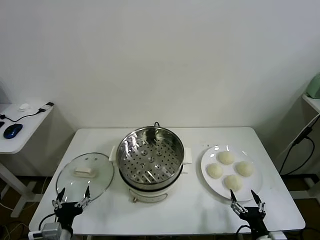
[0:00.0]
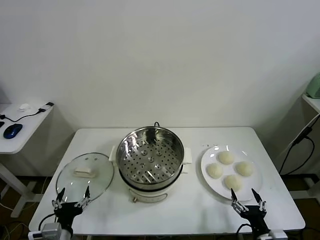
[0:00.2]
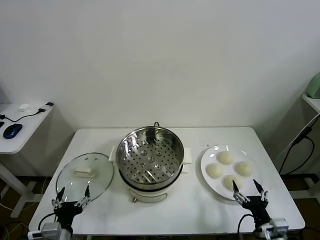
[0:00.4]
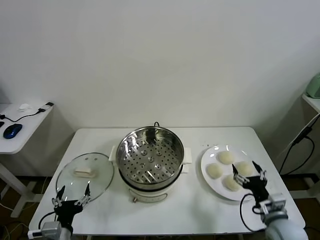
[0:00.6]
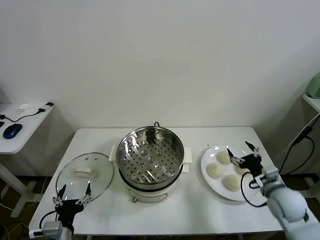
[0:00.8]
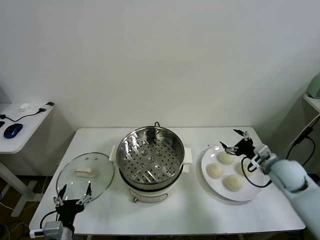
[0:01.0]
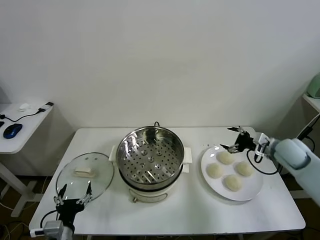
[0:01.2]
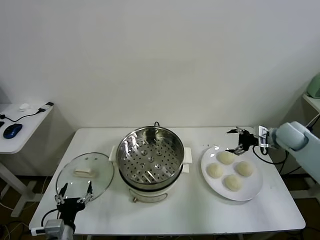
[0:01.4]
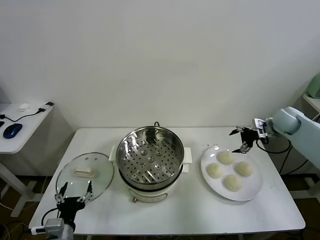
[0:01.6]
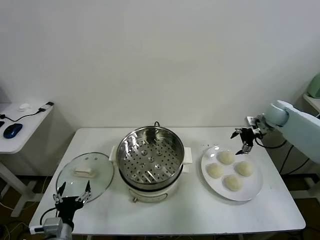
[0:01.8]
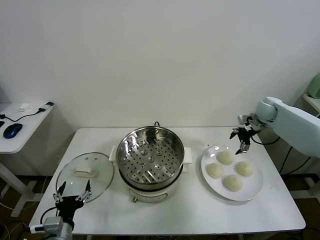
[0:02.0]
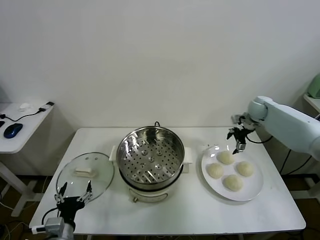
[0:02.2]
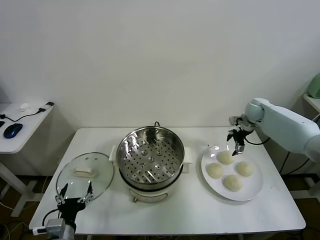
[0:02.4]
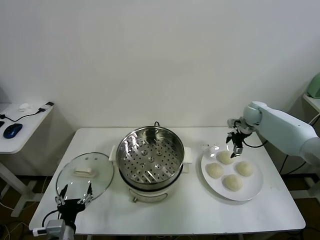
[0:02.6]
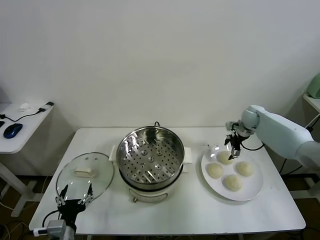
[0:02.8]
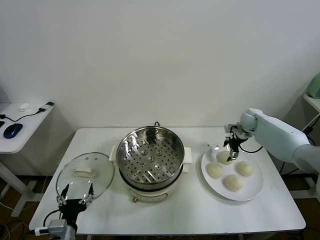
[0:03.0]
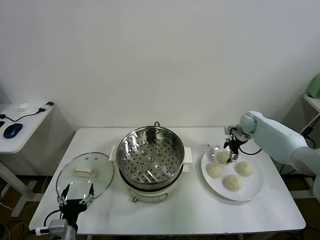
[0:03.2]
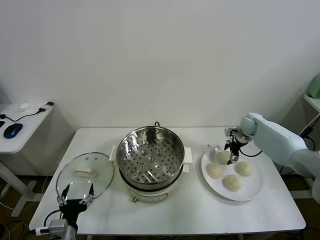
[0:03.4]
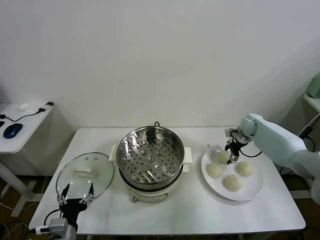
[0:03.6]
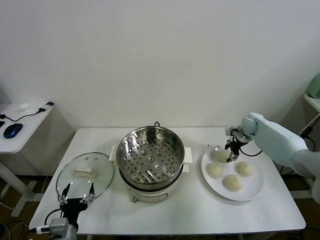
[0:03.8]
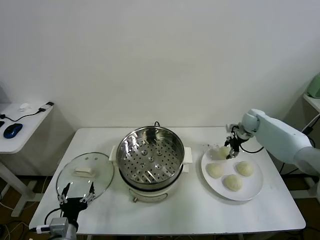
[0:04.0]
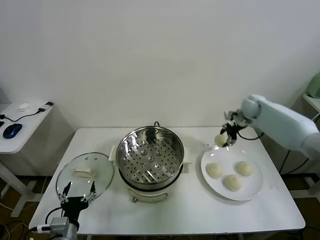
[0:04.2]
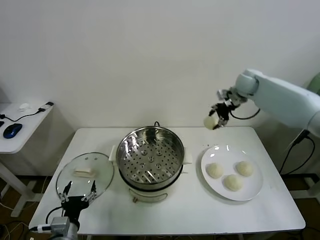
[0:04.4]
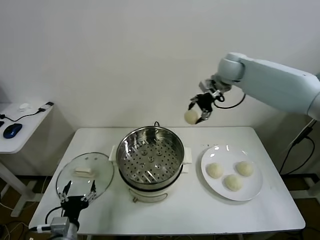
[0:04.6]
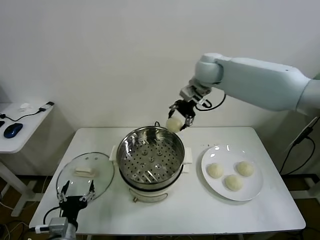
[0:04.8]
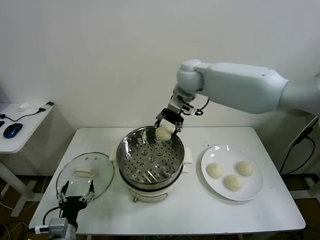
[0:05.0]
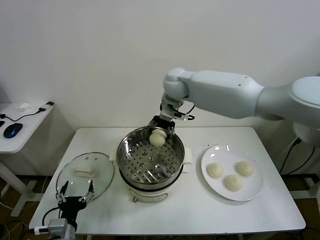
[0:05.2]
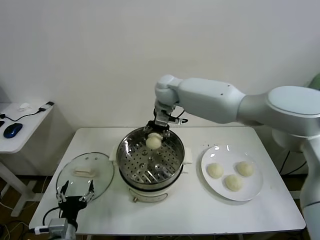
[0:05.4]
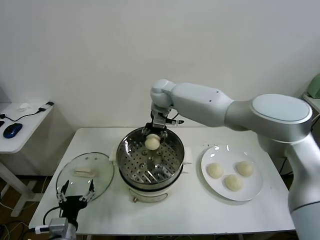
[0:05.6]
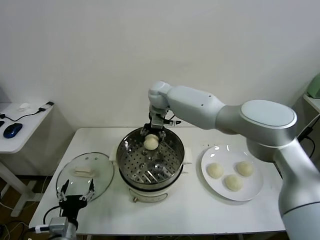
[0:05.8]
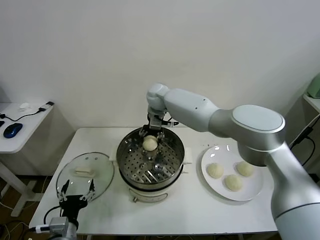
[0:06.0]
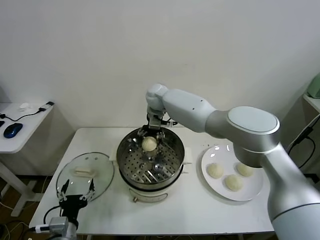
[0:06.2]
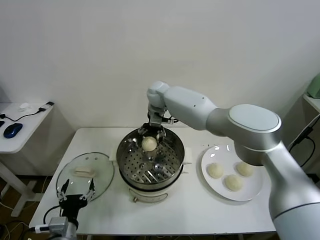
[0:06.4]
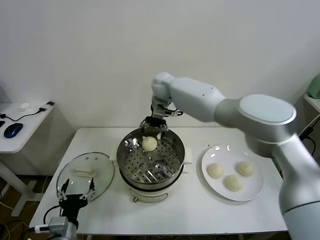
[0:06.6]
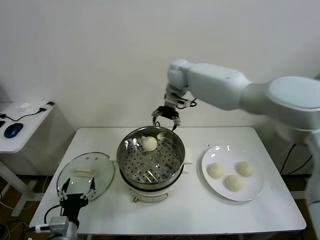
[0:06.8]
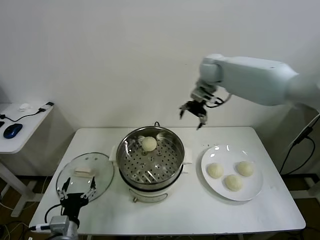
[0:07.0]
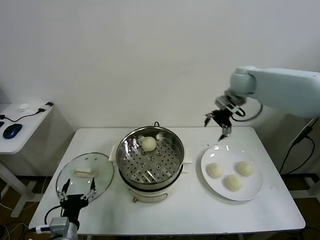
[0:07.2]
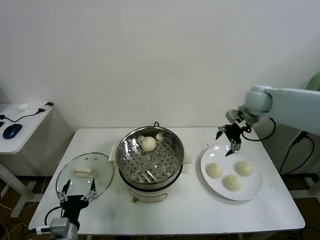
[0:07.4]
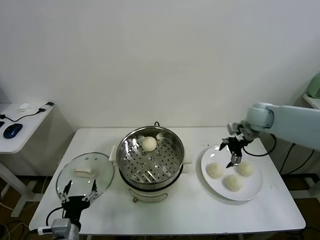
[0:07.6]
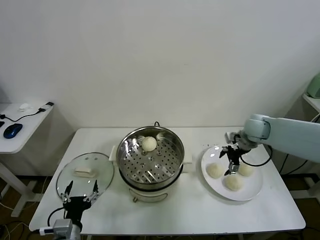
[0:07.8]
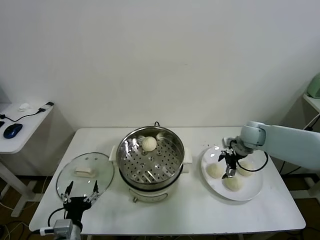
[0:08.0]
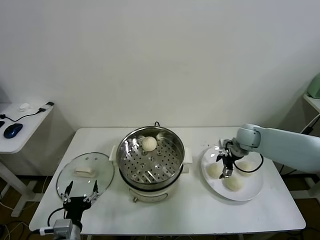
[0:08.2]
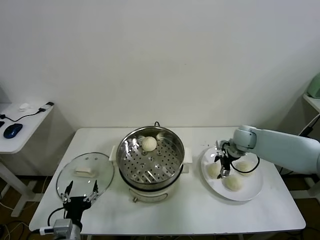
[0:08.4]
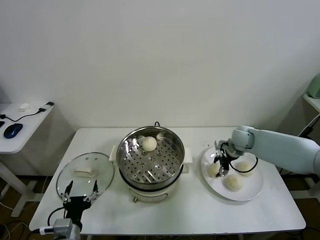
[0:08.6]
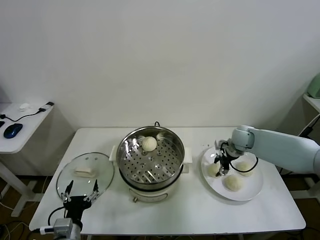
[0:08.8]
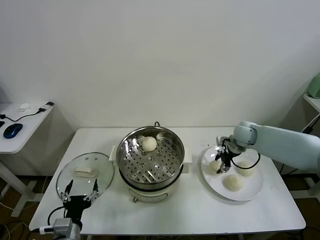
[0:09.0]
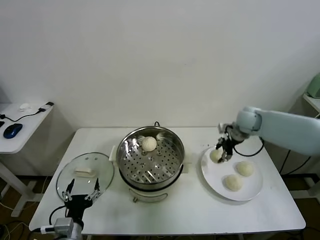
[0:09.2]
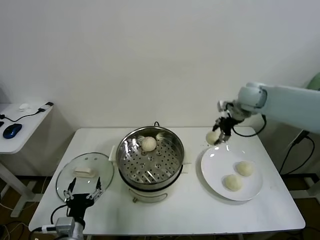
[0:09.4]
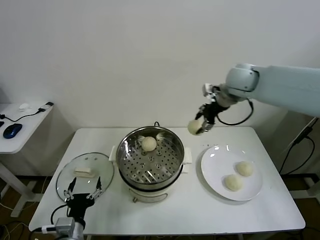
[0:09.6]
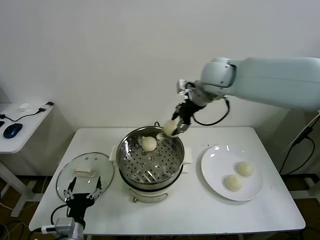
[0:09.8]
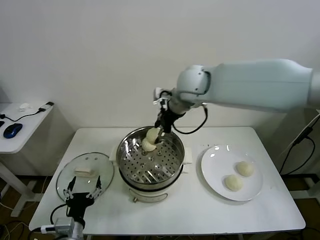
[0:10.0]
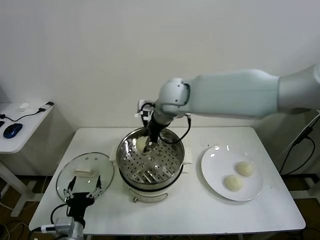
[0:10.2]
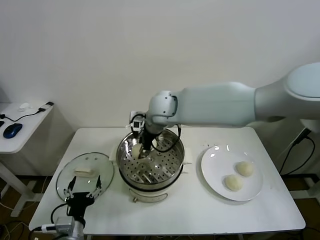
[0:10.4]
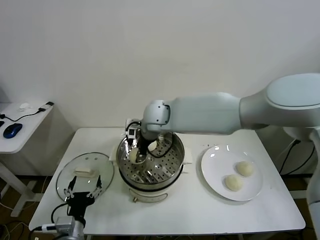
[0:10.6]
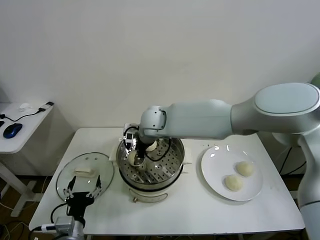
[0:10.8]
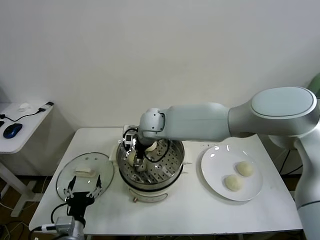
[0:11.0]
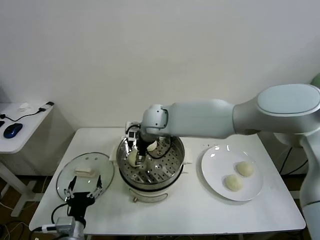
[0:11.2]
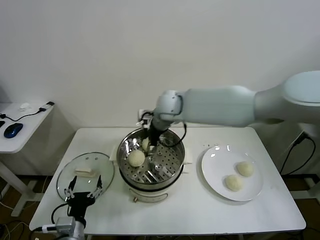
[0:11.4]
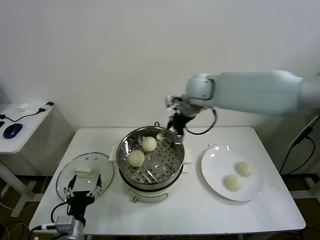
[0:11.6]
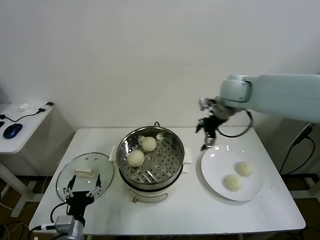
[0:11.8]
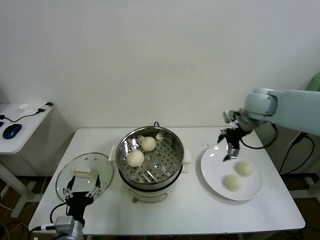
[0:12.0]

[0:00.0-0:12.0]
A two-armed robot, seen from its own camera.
Task of the whole recording: take steamed baozi put them in steamer.
Step, 0:00.0 to 0:03.8: Grasp the baozi in the plate with right gripper.
Step, 0:04.0 to 0:06.4: Place the baozi on the steamer with right gripper.
Step, 0:06.6 to 0:08.8: Grasp the baozi in the plate with right gripper.
Step, 0:09.0 to 0:11.2: Place the baozi on the steamer with right gripper.
0:01.6 to 0:03.0: The right gripper shifts about 10 cm downward, to the left and forward.
0:03.0 to 0:04.4: The right gripper heads upward and to the left, covering about 25 cm, and closes.
0:04.4 to 0:06.0: The right gripper travels to the left by roughly 30 cm.
0:06.0 to 0:07.6: The right gripper shifts about 35 cm to the right, and opens.
0:07.6 to 0:09.0: The right gripper goes approximately 5 cm downward, and closes its fingers.
0:09.0 to 0:10.4: The right gripper goes some 35 cm to the left and upward.
0:10.4 to 0:12.0: The right gripper heads to the right, covering approximately 35 cm, and opens up.

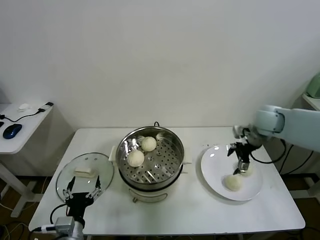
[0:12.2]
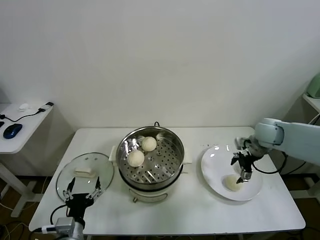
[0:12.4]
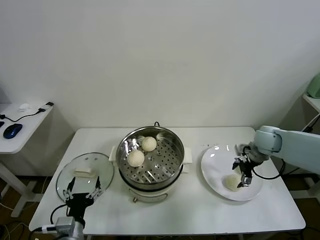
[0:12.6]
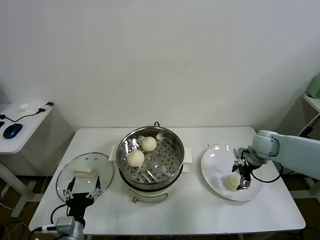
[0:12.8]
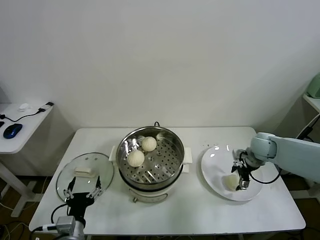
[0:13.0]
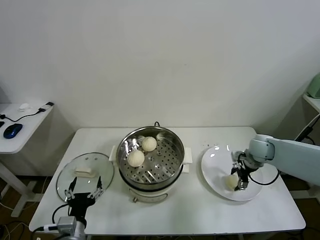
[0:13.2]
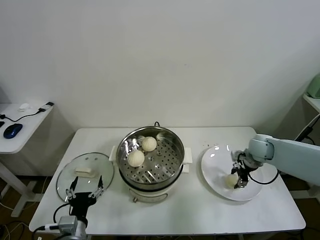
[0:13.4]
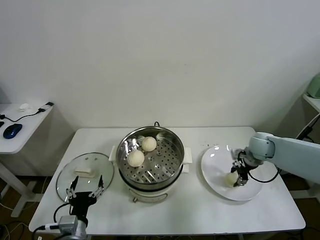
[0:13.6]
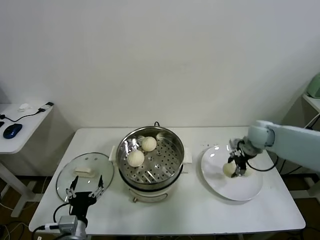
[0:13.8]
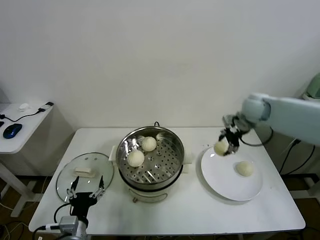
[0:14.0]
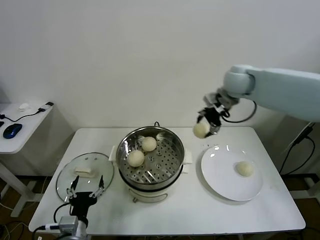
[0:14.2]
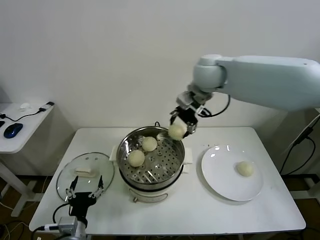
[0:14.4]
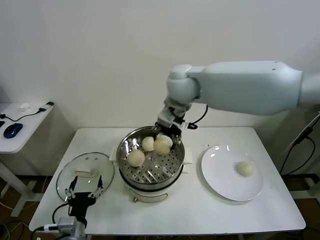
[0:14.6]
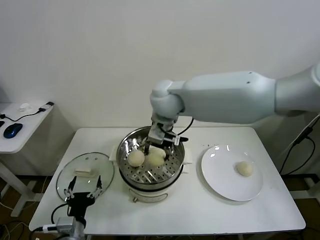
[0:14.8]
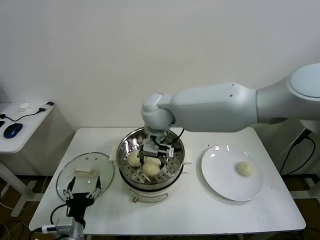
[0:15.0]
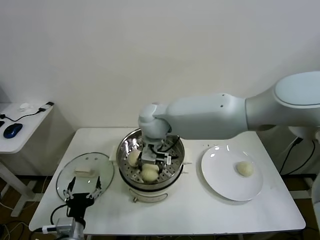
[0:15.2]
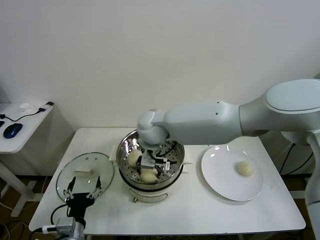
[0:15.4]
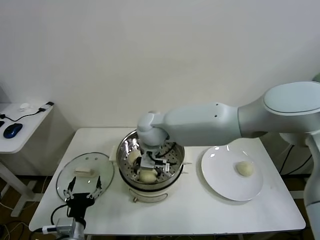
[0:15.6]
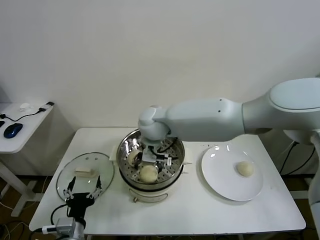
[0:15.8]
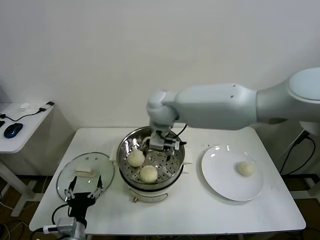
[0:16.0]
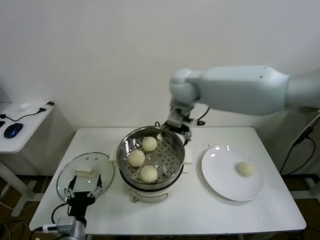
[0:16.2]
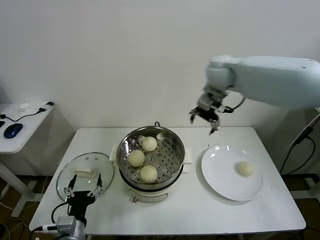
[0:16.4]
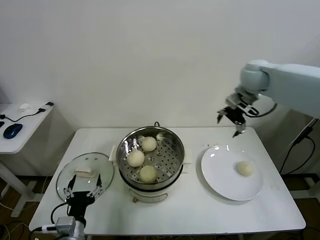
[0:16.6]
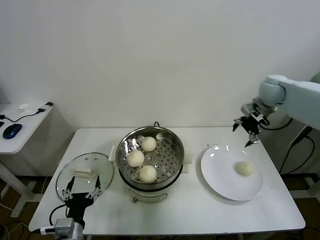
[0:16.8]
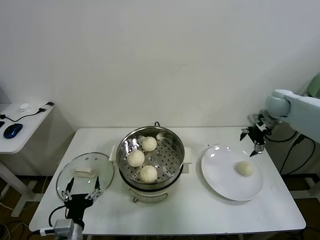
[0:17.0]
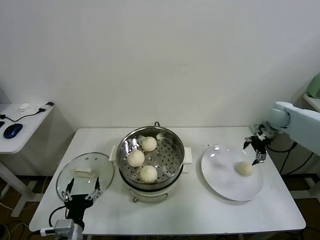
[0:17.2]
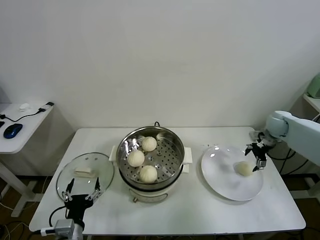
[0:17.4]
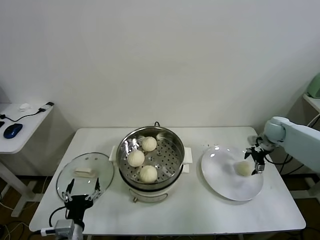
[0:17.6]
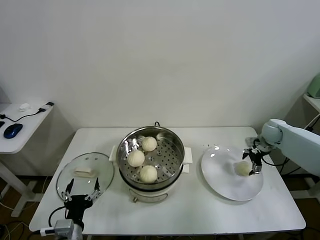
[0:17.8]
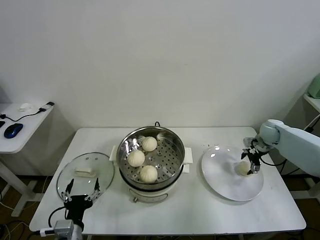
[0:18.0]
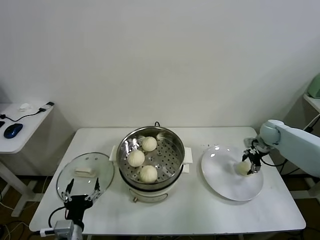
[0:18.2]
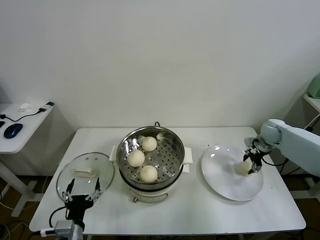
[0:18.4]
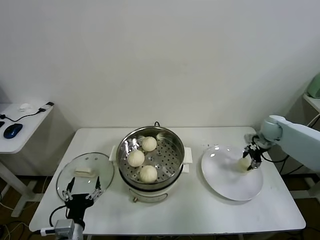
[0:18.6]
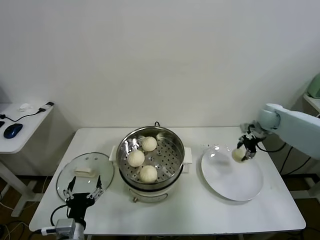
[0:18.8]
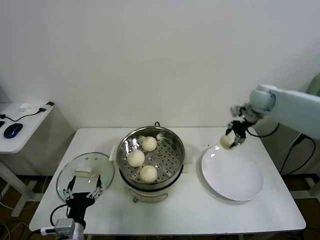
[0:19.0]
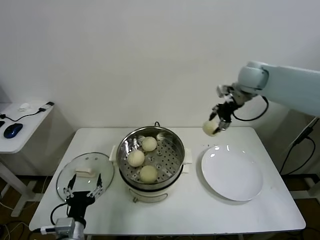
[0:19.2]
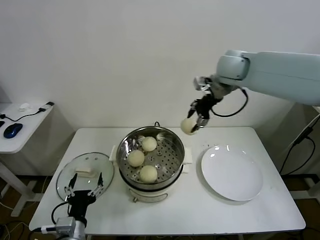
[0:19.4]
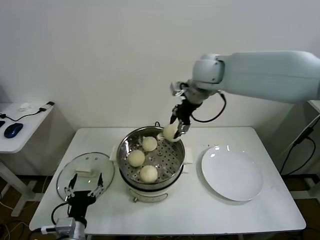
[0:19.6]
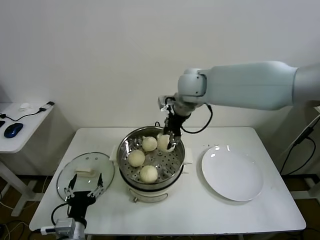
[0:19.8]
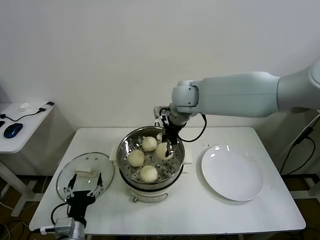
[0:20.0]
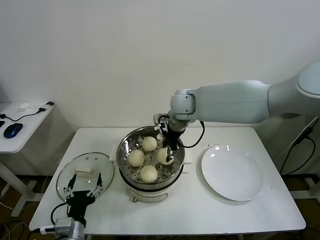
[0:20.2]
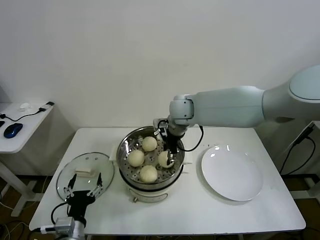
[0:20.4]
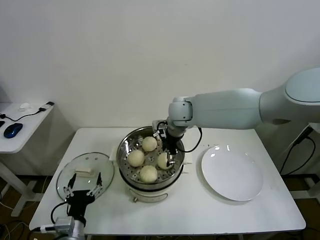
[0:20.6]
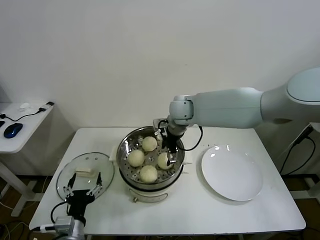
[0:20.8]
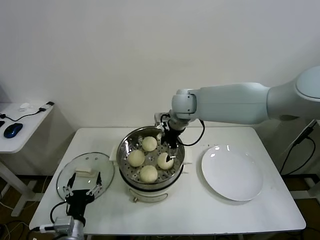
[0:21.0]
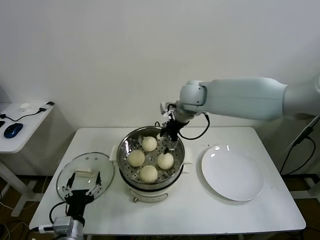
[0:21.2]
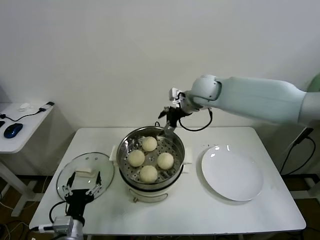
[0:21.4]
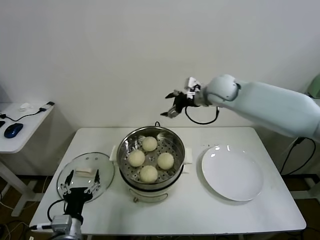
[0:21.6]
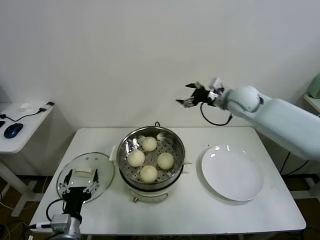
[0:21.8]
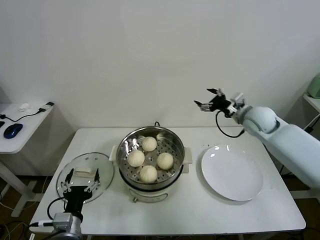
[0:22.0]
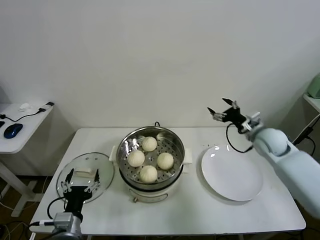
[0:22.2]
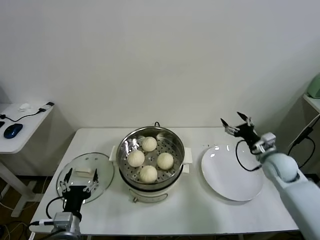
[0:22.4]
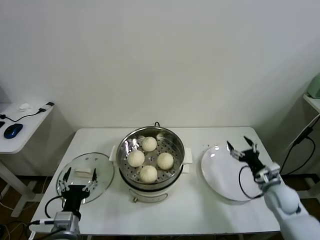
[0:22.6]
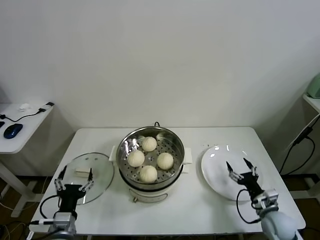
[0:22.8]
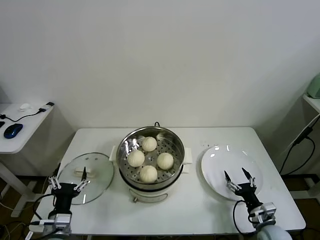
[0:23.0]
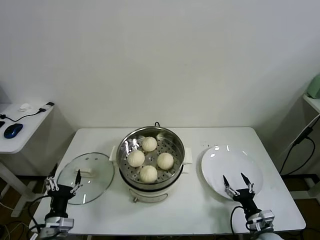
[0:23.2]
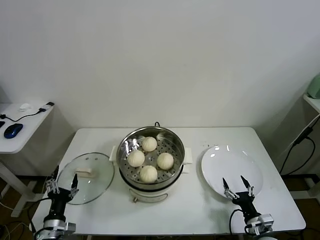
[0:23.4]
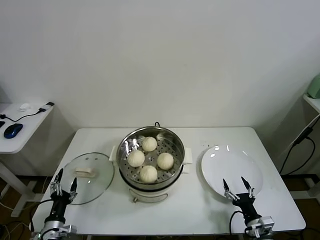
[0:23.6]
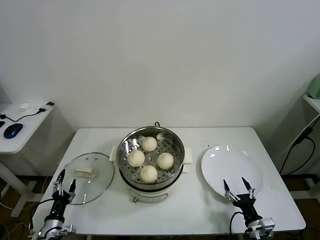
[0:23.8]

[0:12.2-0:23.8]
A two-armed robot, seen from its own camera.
Task of the whole recording: take steamed baozi put them in steamer.
Step, 0:12.2 to 0:13.4: Grasp the baozi in the plate with right gripper.
Step, 0:13.6 to 0:15.8: Place the baozi on the steamer with right gripper.
Step, 0:16.0 to 0:18.4: Grasp the baozi in the plate with right gripper.
Step, 0:18.6 to 0:20.8: Place the baozi on the steamer with right gripper.
0:12.2 to 0:13.6: The right gripper heads downward, covering about 10 cm, and closes up.
0:13.6 to 0:15.0: The right gripper goes roughly 40 cm to the left and upward.
0:15.0 to 0:16.6: The right gripper heads to the right, covering approximately 35 cm, and opens up.
0:16.6 to 0:18.0: The right gripper heads downward and to the right, covering about 25 cm.
0:18.0 to 0:19.4: The right gripper shifts approximately 35 cm upward and to the left, and closes.
0:19.4 to 0:21.0: The right gripper heads to the left and downward, covering roughly 15 cm, and opens its fingers.
0:21.0 to 0:22.4: The right gripper is displaced to the right, downward and backward by approximately 40 cm.
0:22.4 to 0:23.8: The right gripper goes about 30 cm backward and downward. The left gripper travels downward and to the left by some 20 cm.
